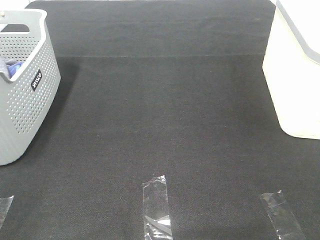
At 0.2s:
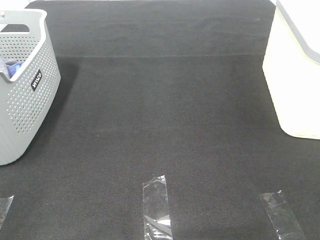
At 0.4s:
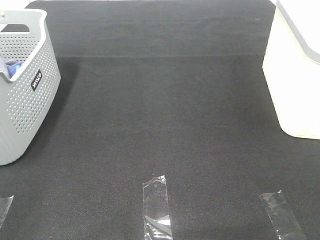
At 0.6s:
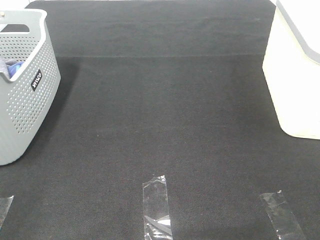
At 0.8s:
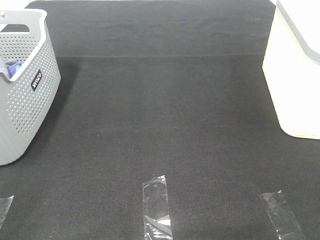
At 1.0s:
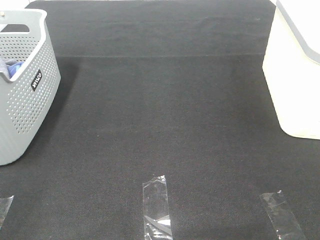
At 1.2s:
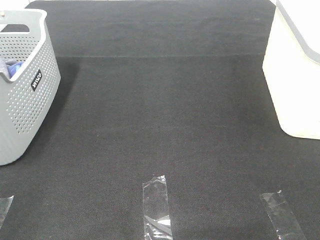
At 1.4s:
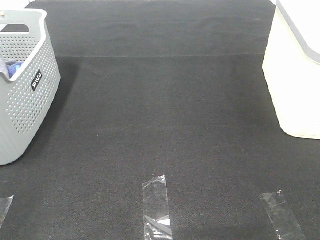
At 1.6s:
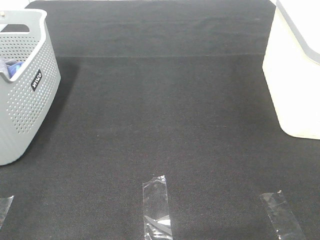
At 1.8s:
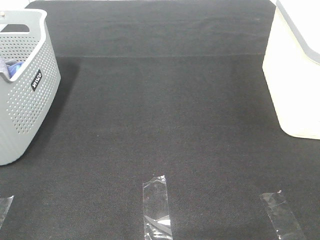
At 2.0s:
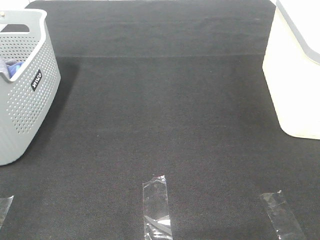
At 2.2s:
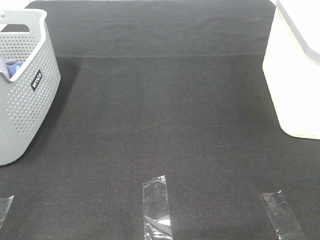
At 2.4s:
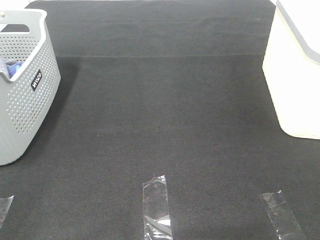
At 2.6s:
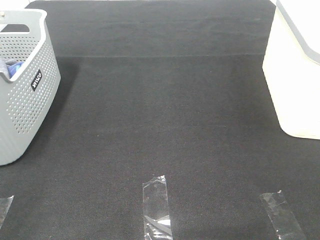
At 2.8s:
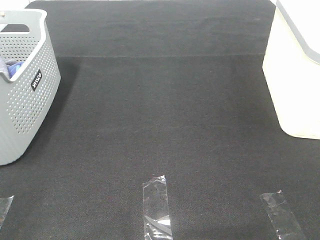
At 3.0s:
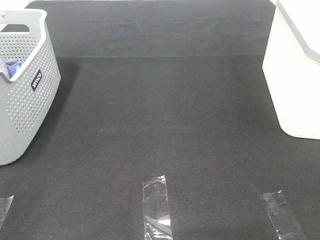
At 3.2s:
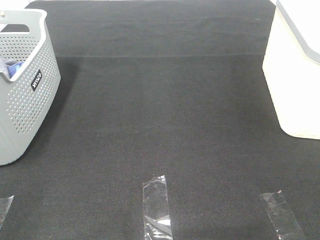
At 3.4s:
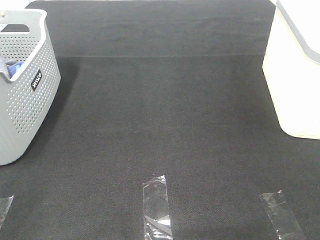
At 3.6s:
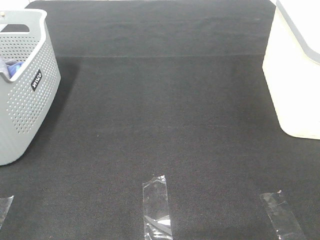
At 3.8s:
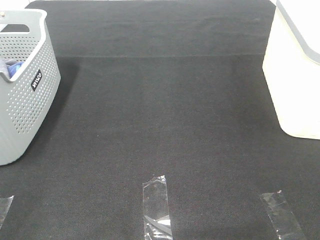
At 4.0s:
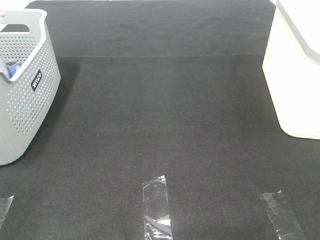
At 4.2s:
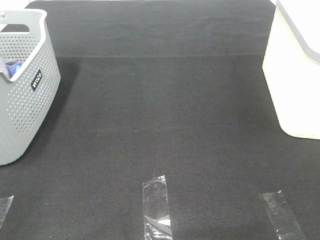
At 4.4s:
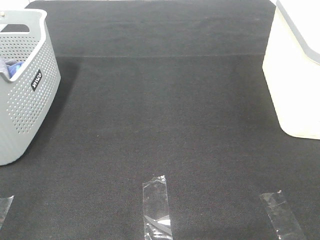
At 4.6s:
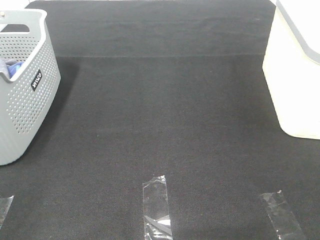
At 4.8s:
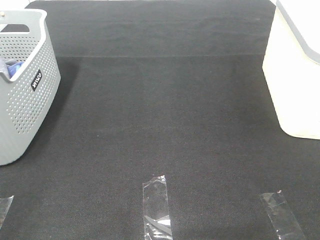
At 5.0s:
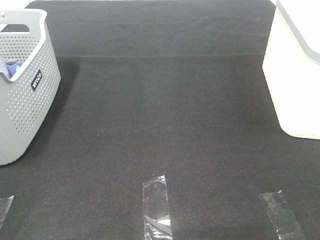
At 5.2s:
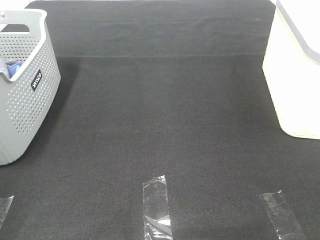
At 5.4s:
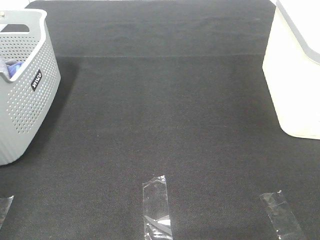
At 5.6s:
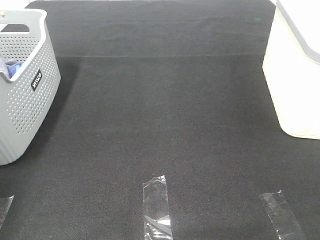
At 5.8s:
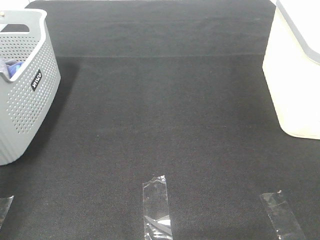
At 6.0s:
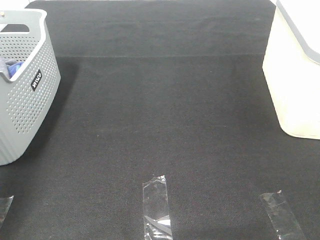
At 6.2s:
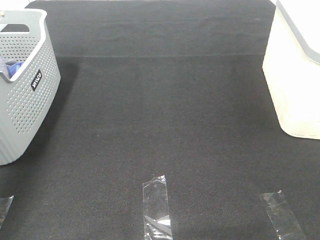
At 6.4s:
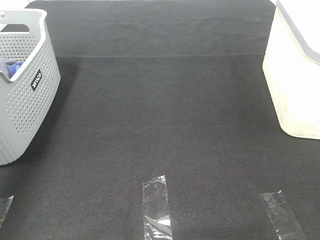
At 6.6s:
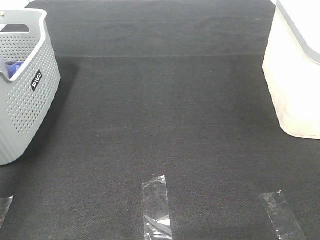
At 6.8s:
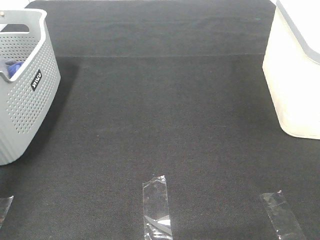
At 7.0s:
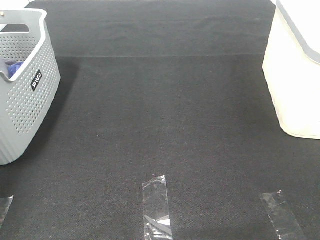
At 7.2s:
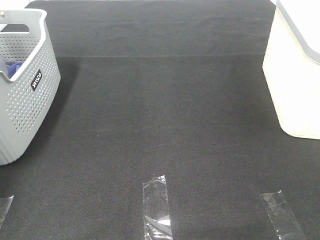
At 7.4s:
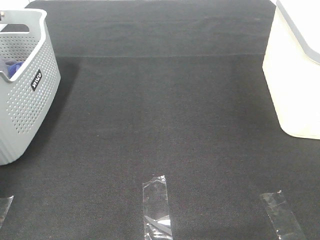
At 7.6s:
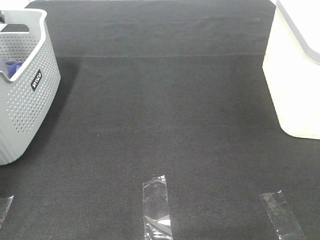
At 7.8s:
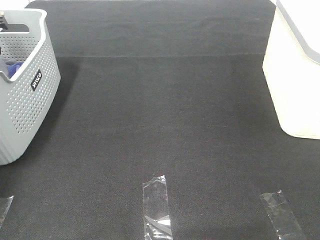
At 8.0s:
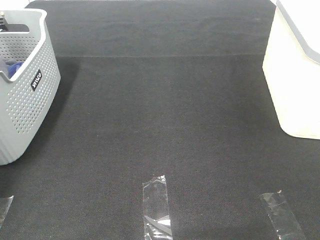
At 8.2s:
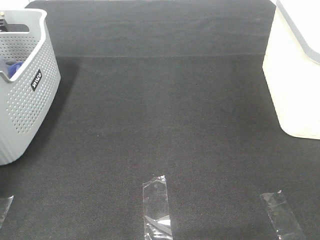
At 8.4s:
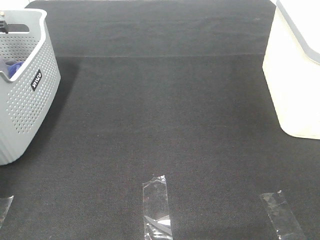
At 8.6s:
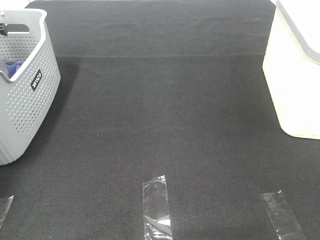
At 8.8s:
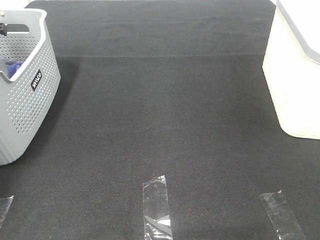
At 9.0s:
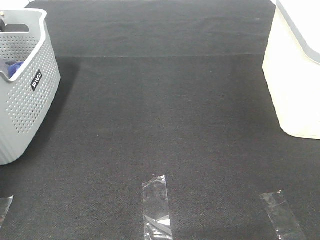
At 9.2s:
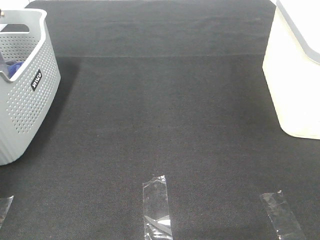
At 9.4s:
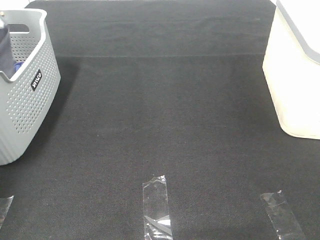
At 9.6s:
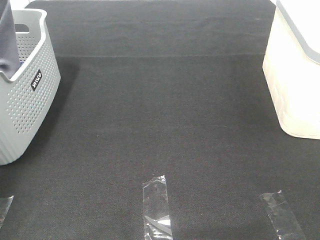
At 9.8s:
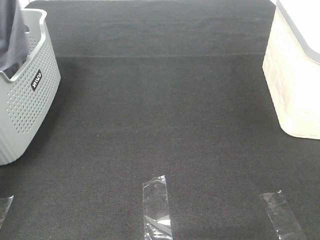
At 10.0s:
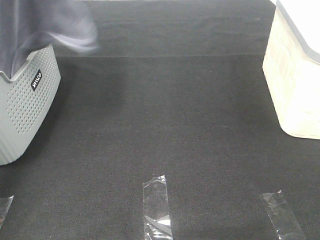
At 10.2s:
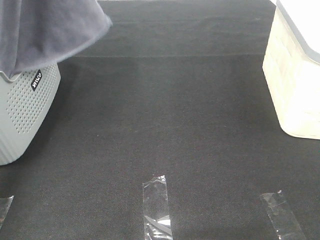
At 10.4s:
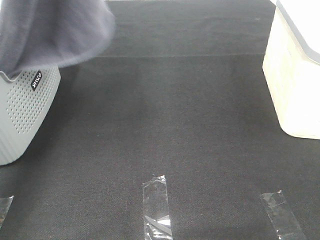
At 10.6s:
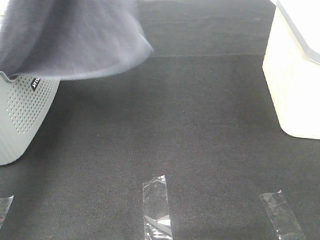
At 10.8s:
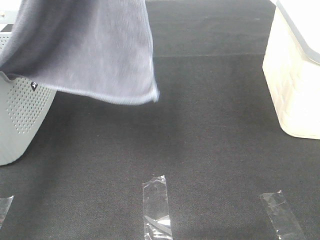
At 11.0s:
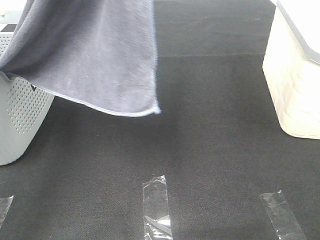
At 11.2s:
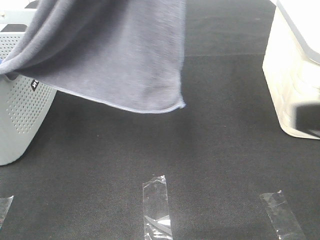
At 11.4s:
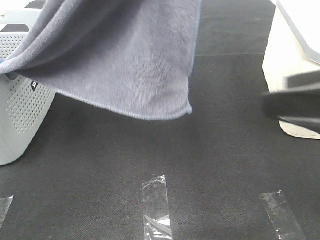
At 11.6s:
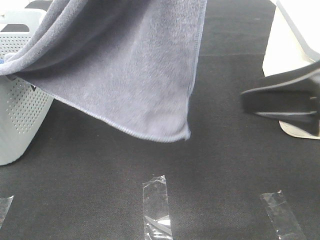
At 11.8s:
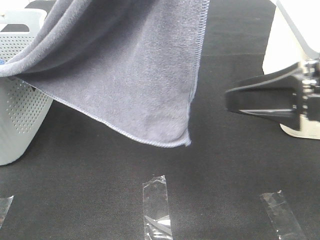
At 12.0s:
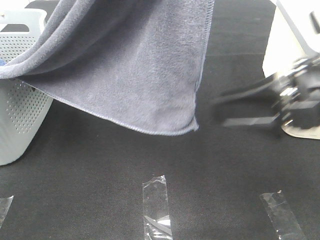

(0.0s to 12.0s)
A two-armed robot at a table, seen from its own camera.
Task of the whole recording: Remove the towel and place it.
0.0s - 4.4s: Both grippers stay about where they are.
4.4s - 6.0s: The left gripper travels forward by roughly 30 cm.
6.0s - 7.6s: The left gripper heads forward, covering about 20 cm.
9.0s - 10.4s: The left gripper goes roughly 35 cm upward, to the right and backward.
10.4s - 12.0s: The right gripper goes about 20 cm forward and to the left. The left gripper shifts approximately 15 cm to the right and backward.

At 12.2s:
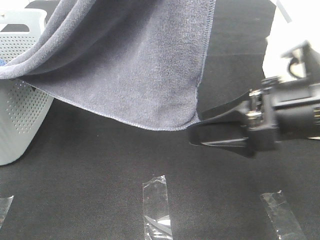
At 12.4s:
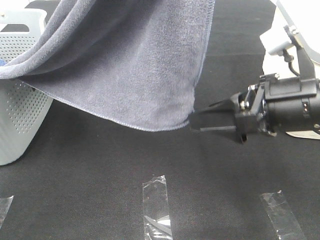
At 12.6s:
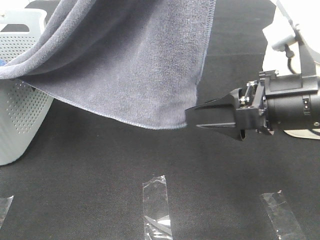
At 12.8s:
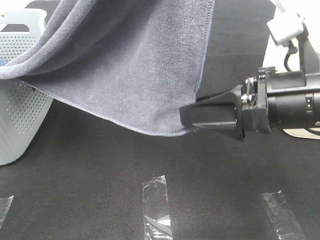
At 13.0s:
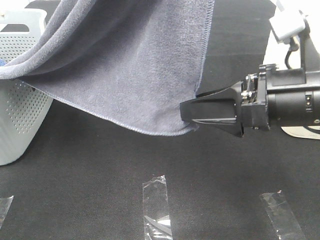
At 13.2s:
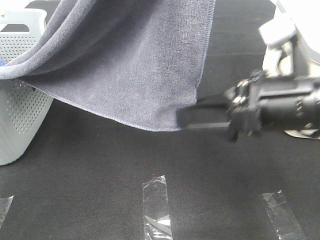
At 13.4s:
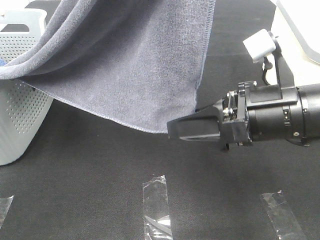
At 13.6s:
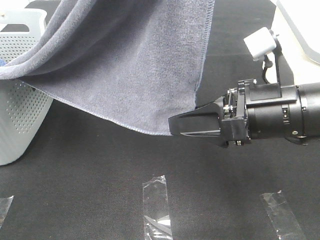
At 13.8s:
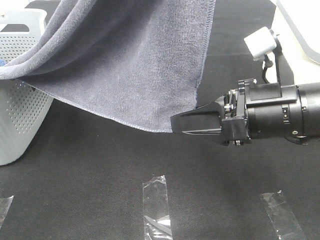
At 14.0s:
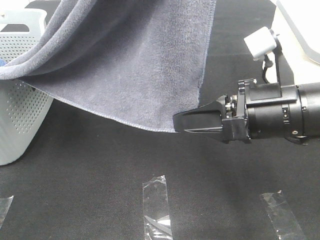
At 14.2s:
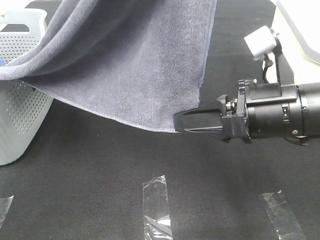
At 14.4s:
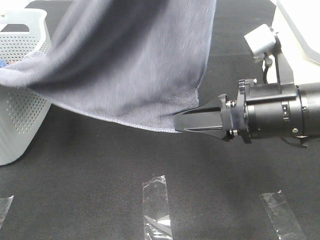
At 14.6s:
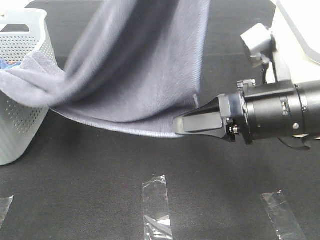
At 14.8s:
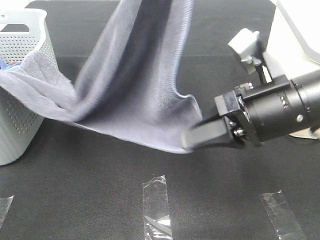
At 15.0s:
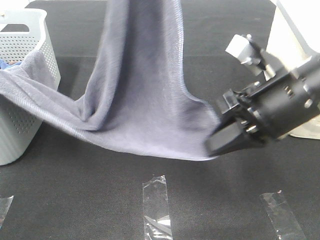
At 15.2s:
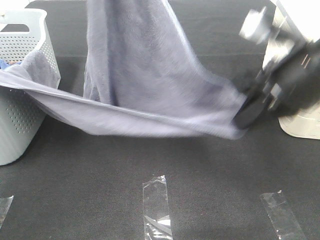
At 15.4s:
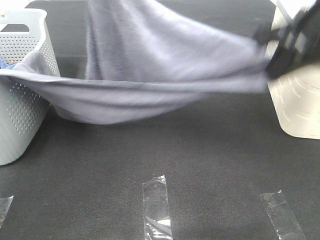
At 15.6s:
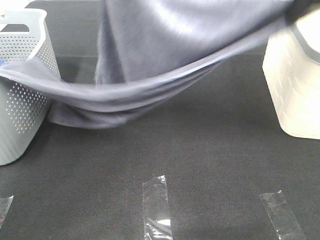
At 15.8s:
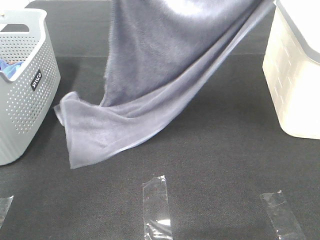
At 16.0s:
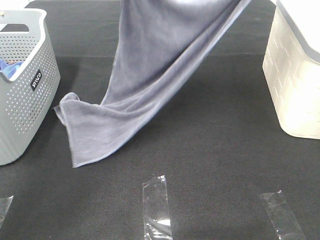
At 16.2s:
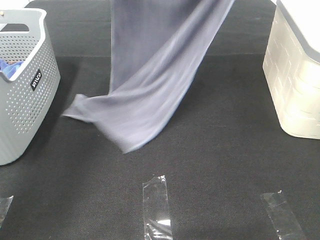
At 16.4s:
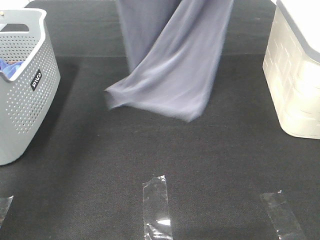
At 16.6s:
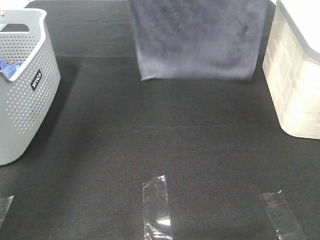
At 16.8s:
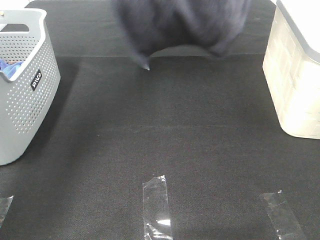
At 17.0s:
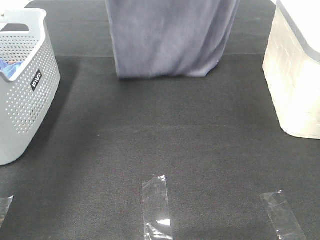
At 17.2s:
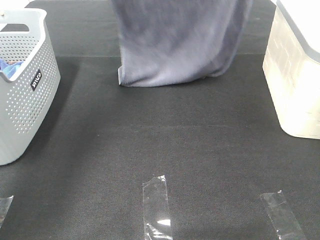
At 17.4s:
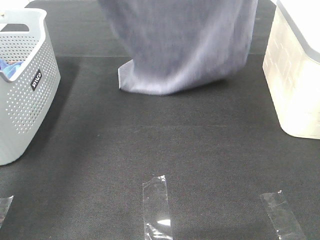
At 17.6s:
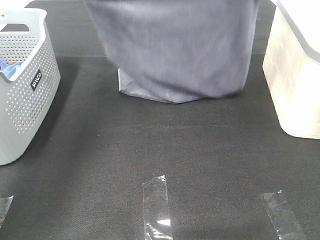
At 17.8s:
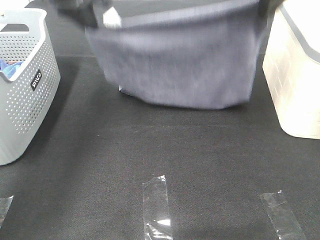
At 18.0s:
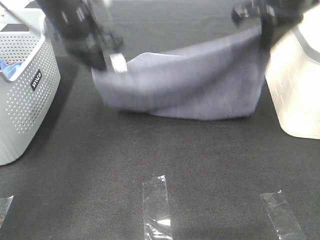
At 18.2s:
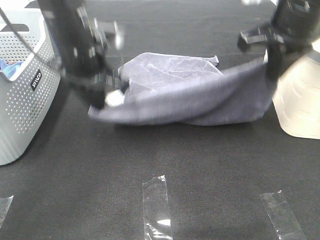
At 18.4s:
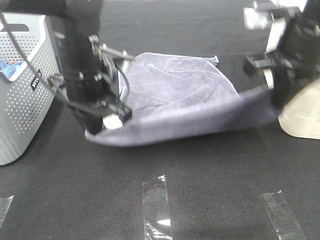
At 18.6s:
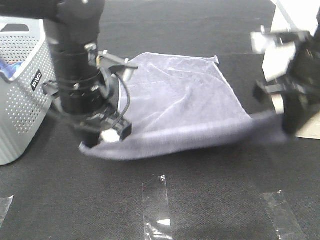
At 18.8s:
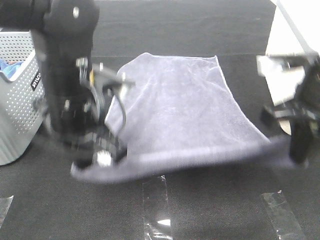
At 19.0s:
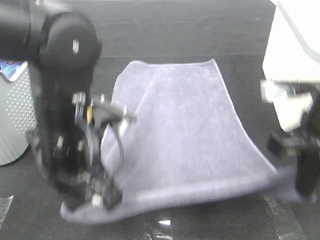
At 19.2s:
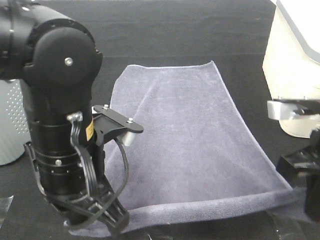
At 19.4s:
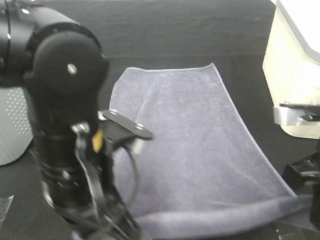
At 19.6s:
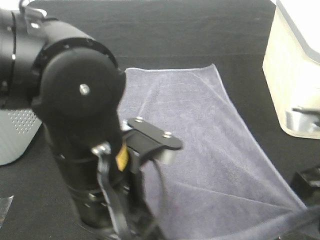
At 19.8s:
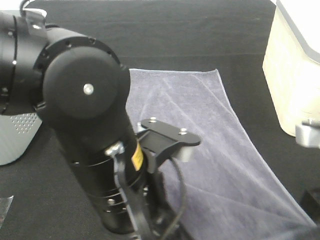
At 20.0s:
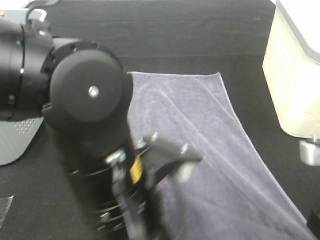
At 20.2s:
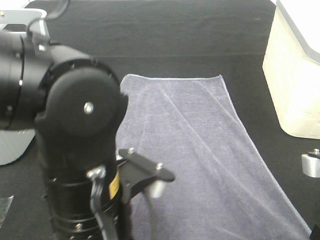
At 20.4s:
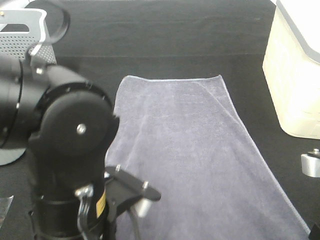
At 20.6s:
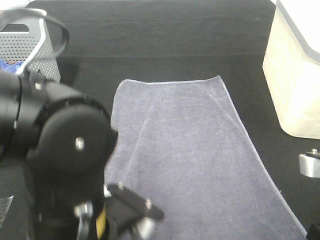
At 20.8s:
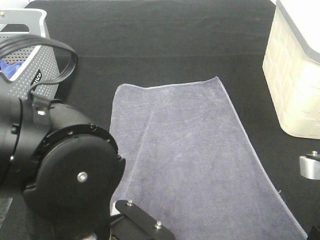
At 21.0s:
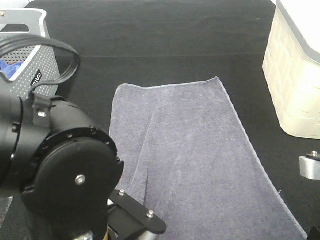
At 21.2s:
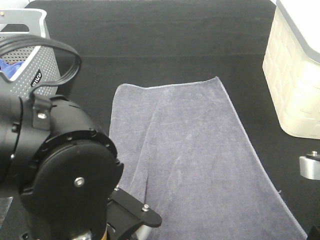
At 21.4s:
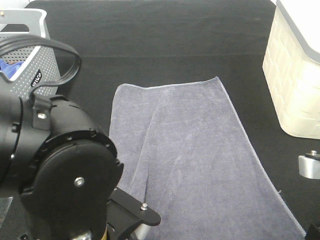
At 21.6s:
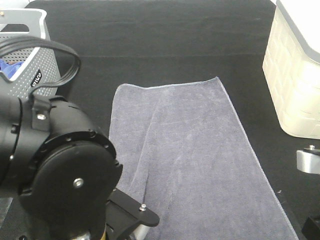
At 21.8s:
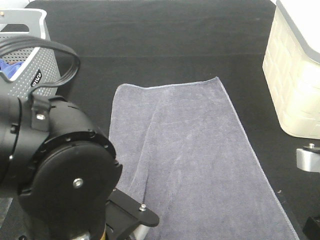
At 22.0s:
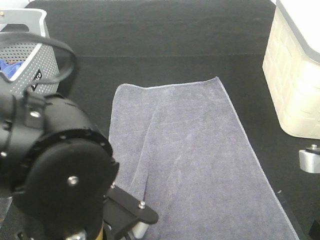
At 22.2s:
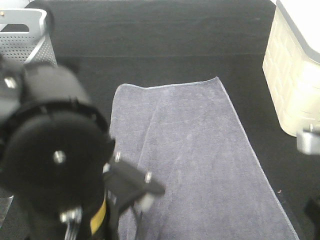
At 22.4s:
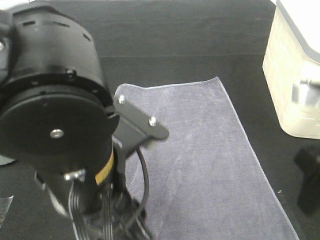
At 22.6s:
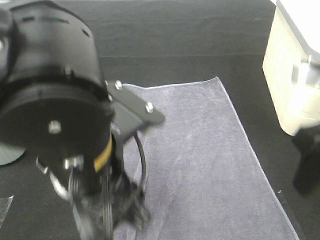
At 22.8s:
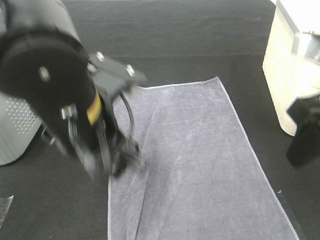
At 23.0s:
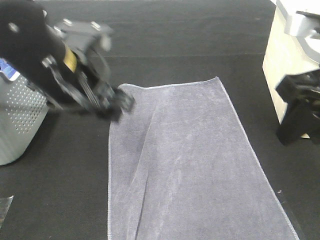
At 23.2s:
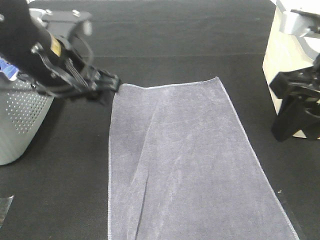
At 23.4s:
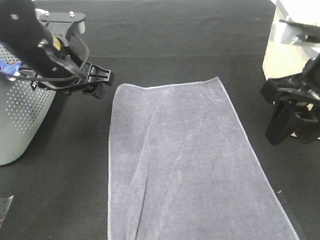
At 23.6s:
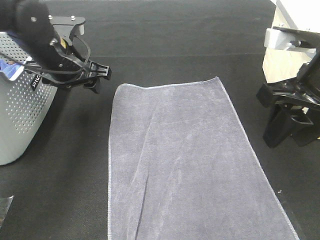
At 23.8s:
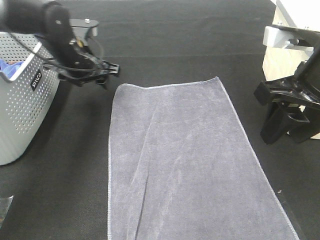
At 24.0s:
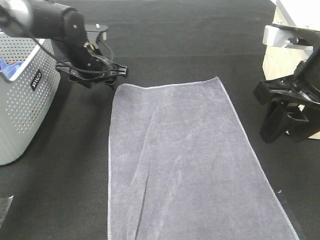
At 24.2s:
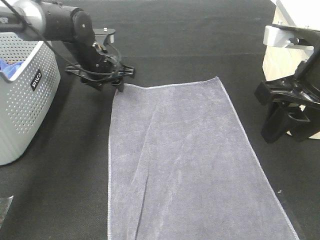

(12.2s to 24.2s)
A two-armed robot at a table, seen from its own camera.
Task of the whole recording: Remove the towel and place it.
Step, 13.4s - 17.6s: Left hand: spread the grey towel flat on the table.
Step, 13.4s - 17.6s: Right hand: spread the grey towel flat on the table.
12.2s - 13.8s: The right gripper closes up.
13.8s - 15.2s: The right gripper goes approximately 5 cm upward. The left gripper is displaced forward and downward by approximately 10 cm.
15.2s - 16.6s: The right gripper travels upward and forward by approximately 30 cm, while the left gripper is displaced forward by approximately 15 cm.
16.6s - 18.2s: The right gripper heads downward, covering approximately 25 cm, while the left gripper goes approximately 25 cm downward and backward.
18.2s - 19.8s: The left gripper heads backward and to the right, covering some 25 cm. Meanwhile the right gripper travels backward and downward by some 20 cm.
19.8s - 21.2s: The left gripper changes place by approximately 5 cm.
21.2s - 22.6s: The left gripper goes roughly 10 cm forward and upward, and opens; the right gripper heads upward and forward, covering approximately 10 cm, and opens.
22.6s - 24.2s: The right gripper heads forward, covering roughly 5 cm, while the left gripper moves forward, about 30 cm.
